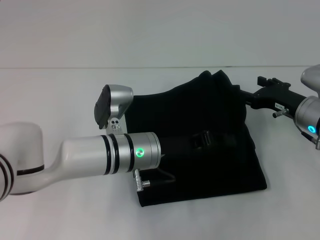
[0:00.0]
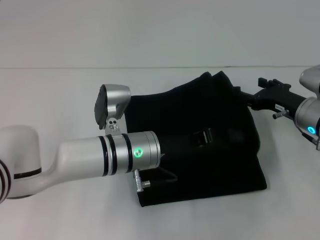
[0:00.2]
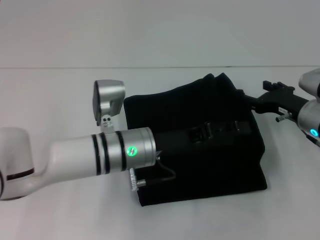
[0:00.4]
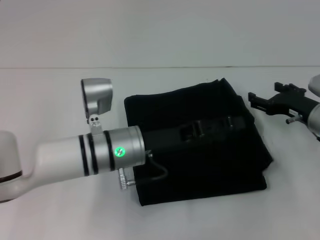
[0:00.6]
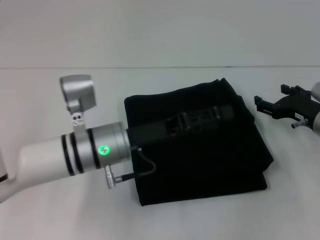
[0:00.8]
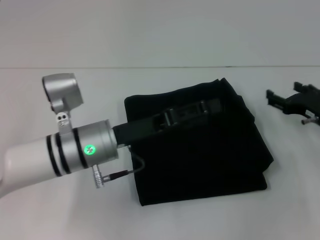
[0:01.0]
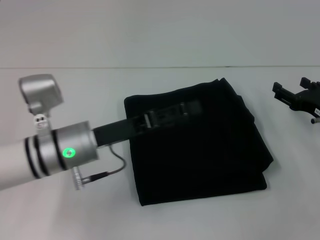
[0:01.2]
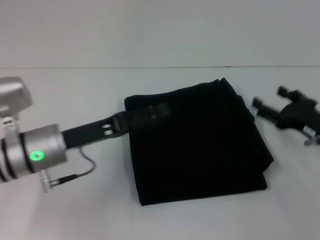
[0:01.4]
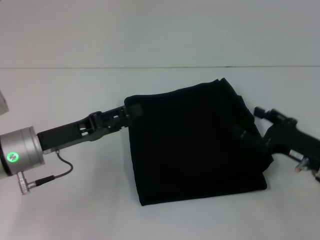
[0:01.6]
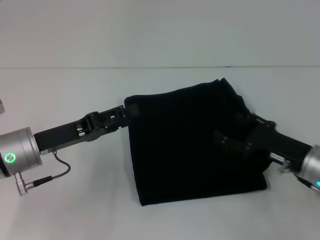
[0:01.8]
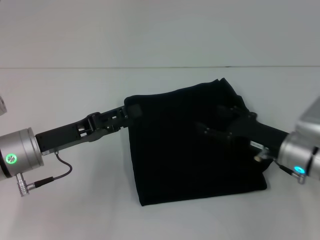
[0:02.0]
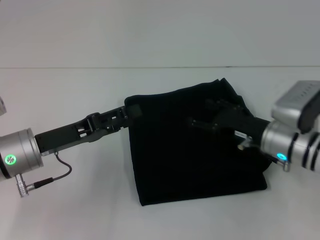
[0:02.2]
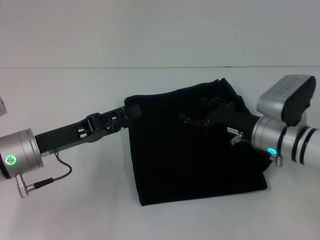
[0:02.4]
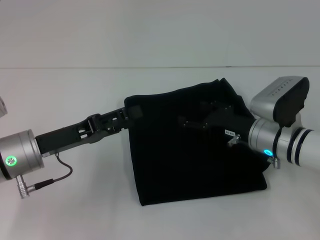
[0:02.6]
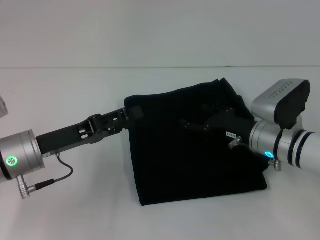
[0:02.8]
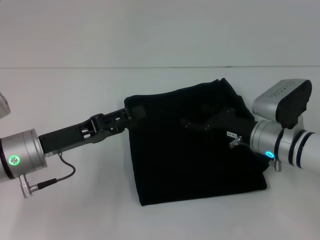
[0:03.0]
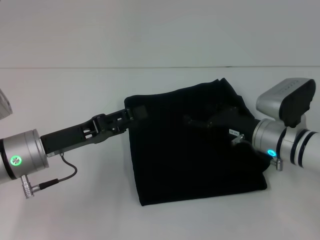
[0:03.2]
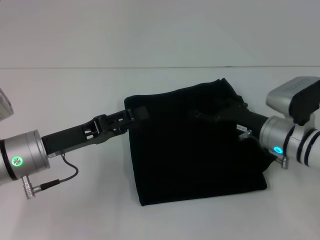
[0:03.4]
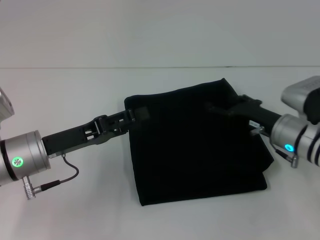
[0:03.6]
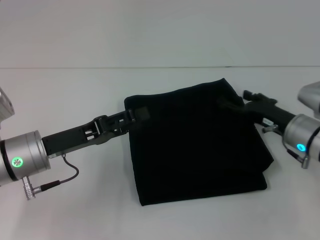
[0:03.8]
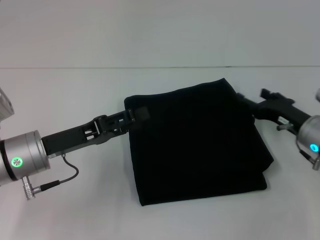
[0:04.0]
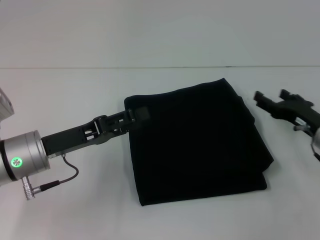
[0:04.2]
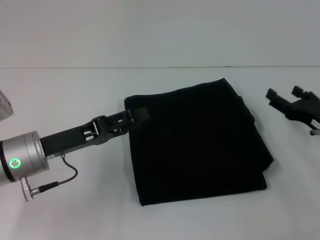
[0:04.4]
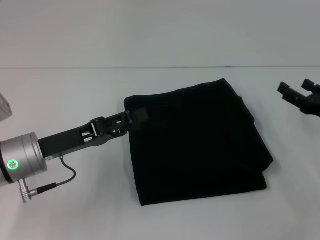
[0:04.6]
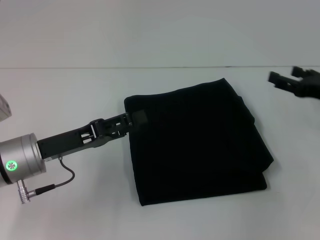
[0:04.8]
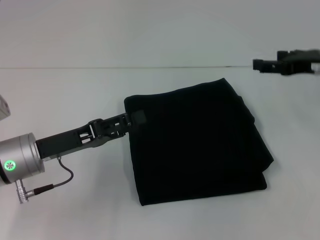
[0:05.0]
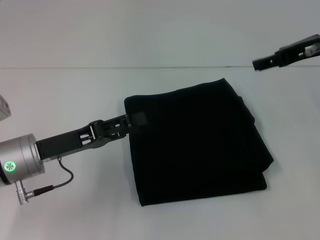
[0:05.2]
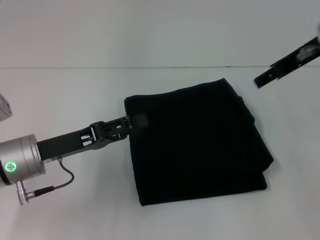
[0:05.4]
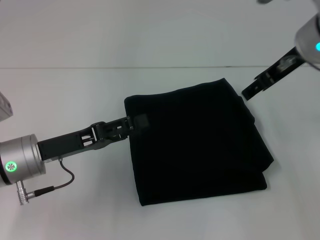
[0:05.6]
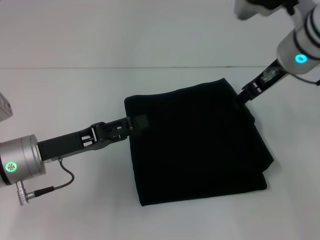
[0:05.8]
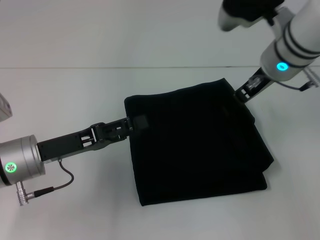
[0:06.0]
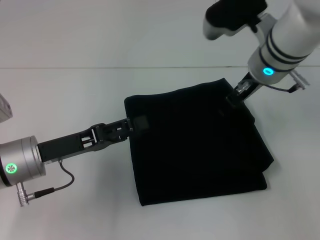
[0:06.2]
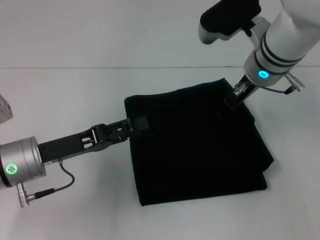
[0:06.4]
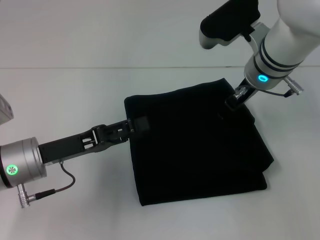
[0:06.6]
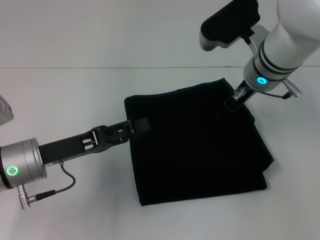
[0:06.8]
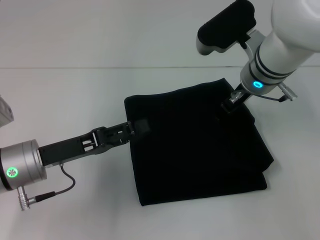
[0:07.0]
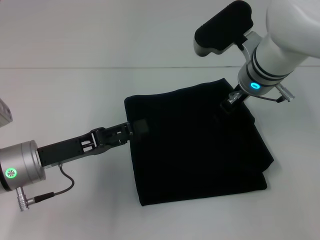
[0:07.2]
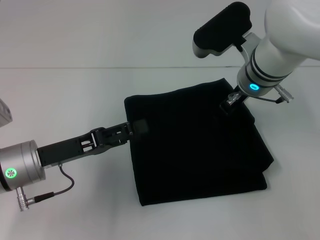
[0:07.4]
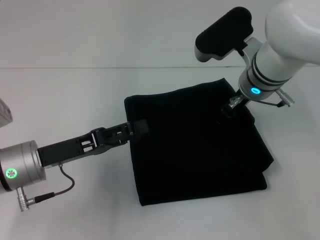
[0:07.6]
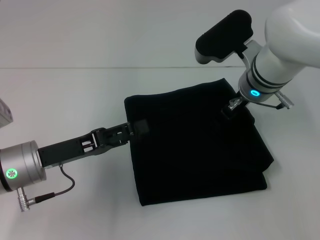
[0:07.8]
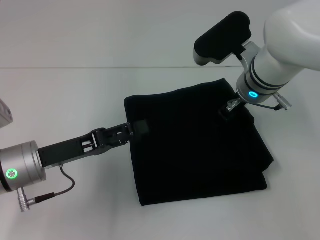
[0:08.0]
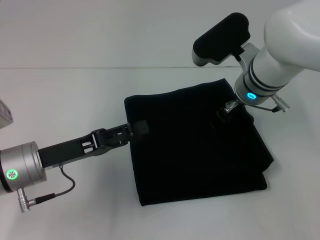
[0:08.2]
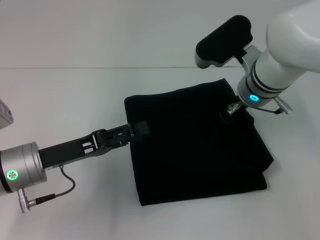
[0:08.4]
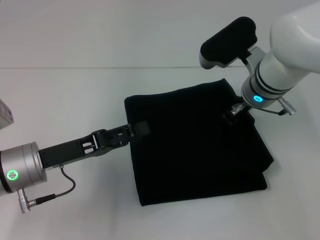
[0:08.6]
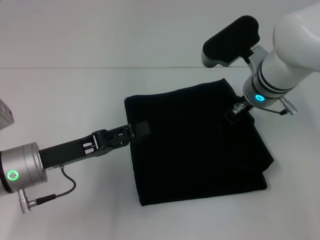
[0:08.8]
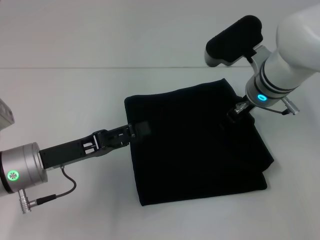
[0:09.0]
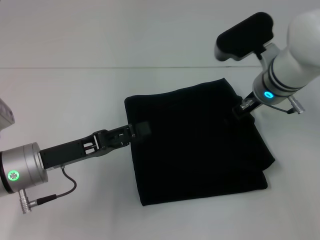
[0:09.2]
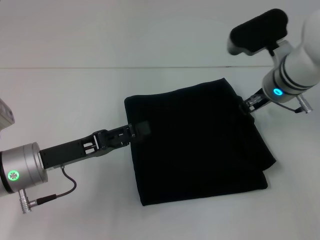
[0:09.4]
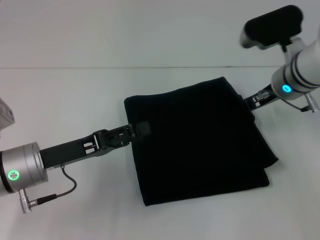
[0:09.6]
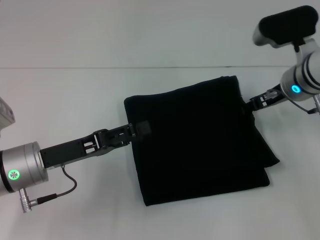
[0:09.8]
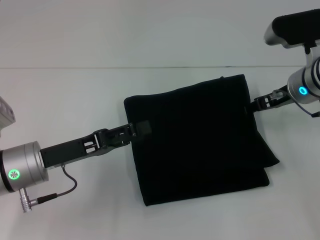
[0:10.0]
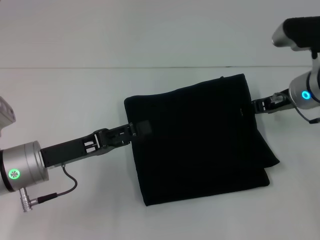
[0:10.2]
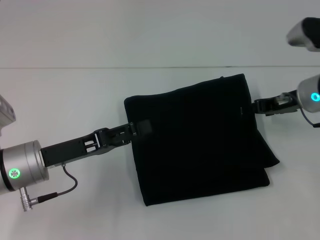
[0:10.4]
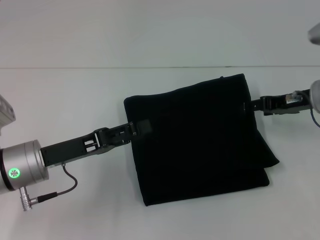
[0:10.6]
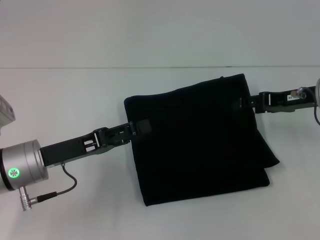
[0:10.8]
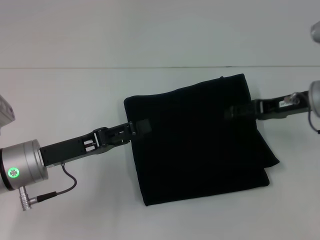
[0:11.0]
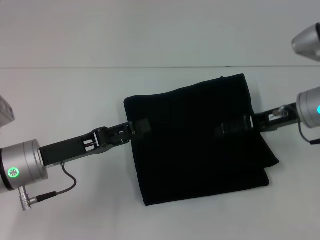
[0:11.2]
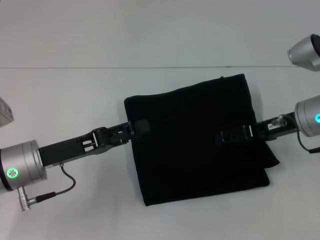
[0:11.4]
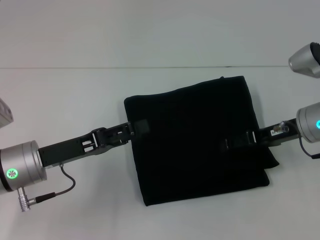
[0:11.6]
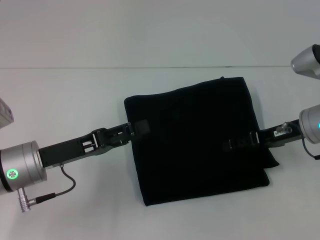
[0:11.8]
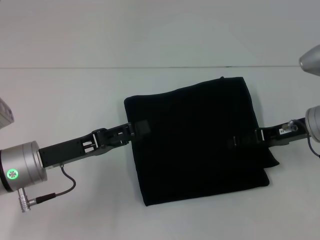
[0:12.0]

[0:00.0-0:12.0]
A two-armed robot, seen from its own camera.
0.0 to 1.6 s: The right gripper is displaced backward by roughly 10 cm, while the left gripper heads to the left, covering some 15 cm, and opens up.
1.6 to 3.0 s: The right gripper is displaced to the left and forward by some 10 cm.
3.0 to 4.4 s: The right gripper heads to the right, covering about 10 cm.
4.4 to 6.0 s: The right gripper moves upward, to the left and forward, about 25 cm.
6.0 to 7.6 s: The right gripper heads downward, covering roughly 5 cm.
7.6 to 9.0 s: There are only small adjustments of the grippers.
9.0 to 10.4 s: The right gripper travels to the right by roughly 10 cm.

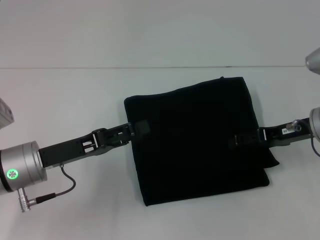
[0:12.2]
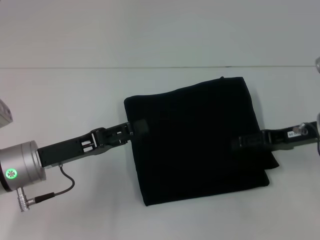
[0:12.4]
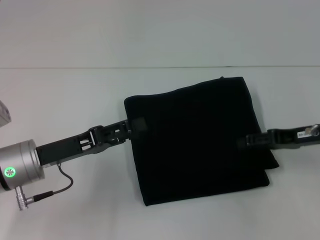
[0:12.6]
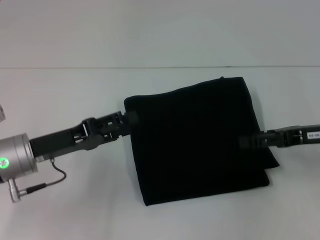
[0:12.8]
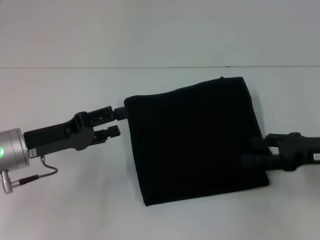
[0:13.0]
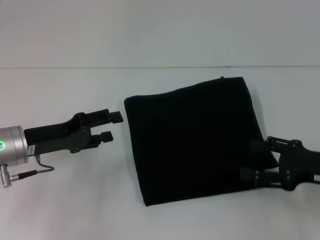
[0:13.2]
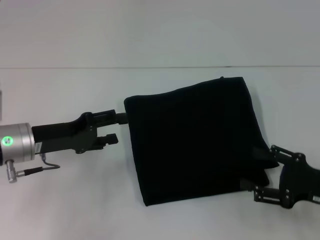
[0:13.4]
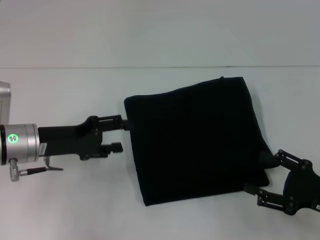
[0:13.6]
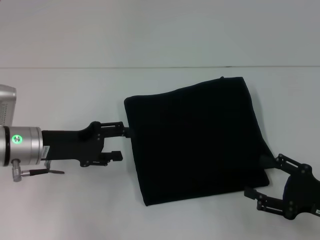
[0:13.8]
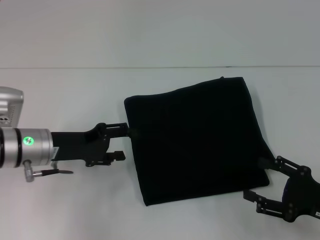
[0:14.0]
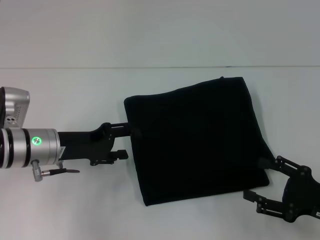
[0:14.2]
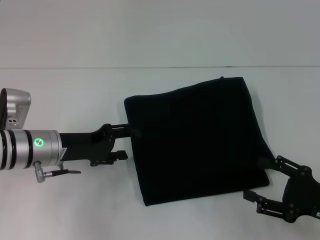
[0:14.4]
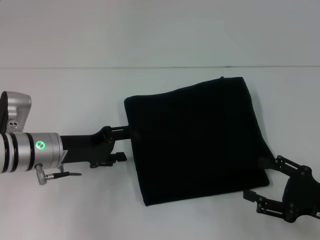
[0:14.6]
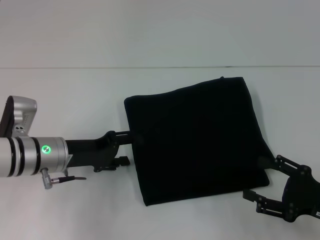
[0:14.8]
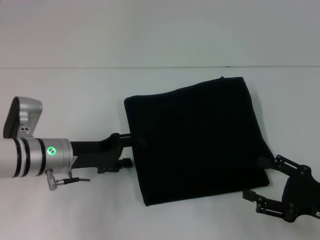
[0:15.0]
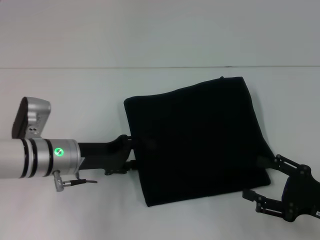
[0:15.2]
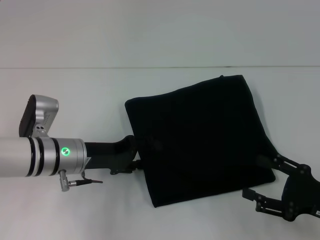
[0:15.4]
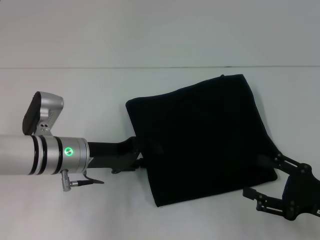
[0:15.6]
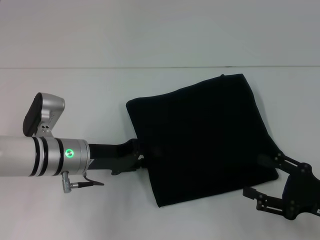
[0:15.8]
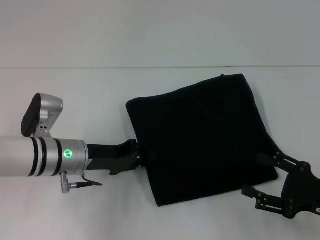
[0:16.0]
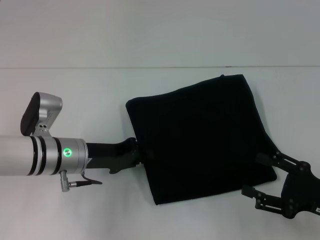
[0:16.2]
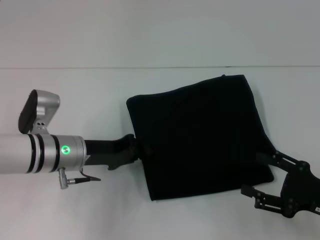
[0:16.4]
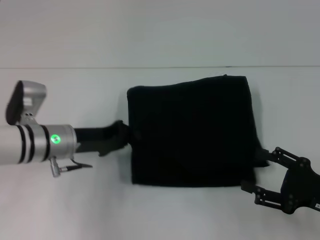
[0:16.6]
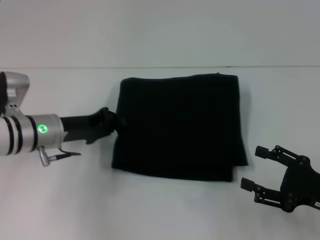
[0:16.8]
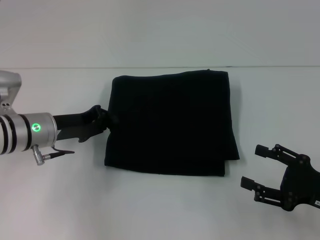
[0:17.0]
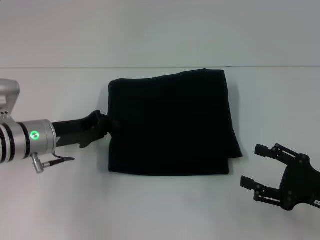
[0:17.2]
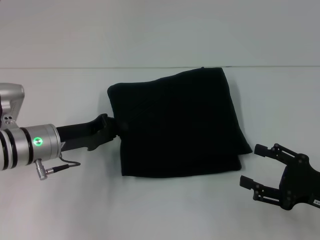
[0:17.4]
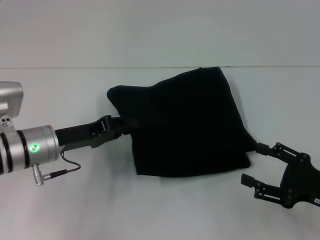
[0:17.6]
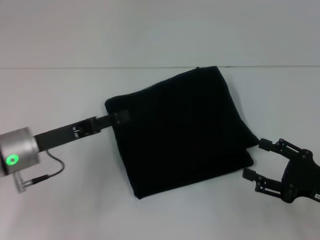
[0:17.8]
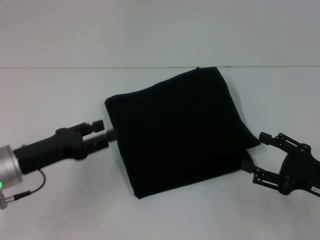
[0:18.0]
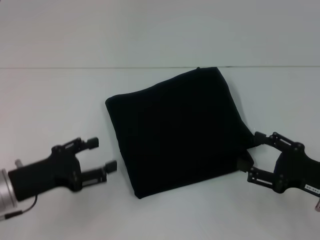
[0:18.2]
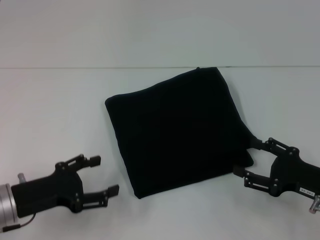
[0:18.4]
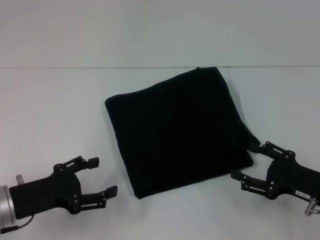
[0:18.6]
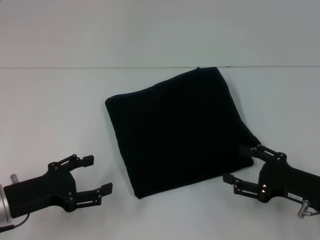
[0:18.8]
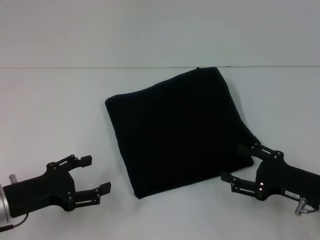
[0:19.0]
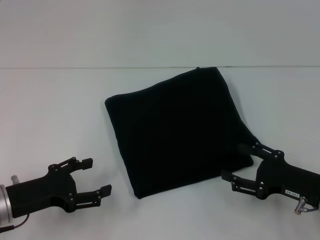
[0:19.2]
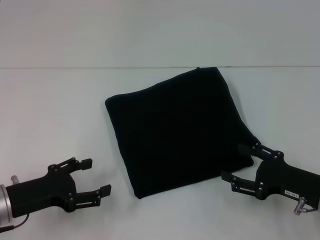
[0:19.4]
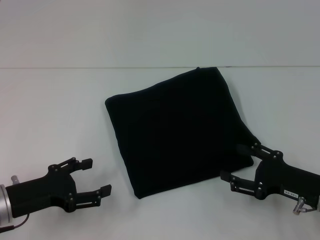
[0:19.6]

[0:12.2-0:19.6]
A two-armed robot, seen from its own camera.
12.2 to 13.6 s: The right gripper is displaced backward and downward by about 15 cm.
13.6 to 15.2 s: The left gripper is displaced to the right by approximately 5 cm.
15.2 to 16.6 s: The left gripper closes.
16.6 to 18.2 s: The left gripper travels backward and to the left by about 10 cm, and opens up.
18.2 to 19.6 s: The grippers stay close to where they were, moving slightly.

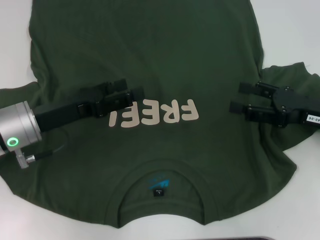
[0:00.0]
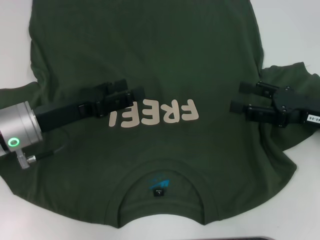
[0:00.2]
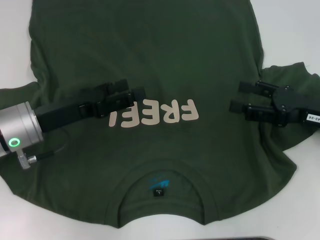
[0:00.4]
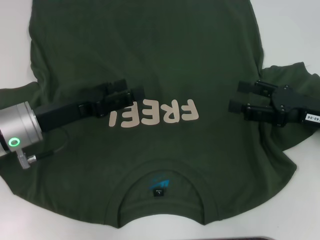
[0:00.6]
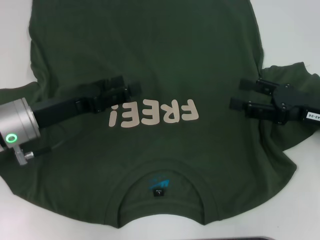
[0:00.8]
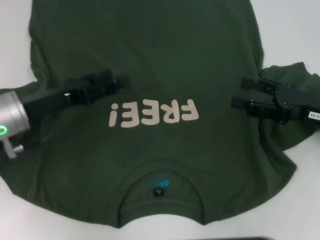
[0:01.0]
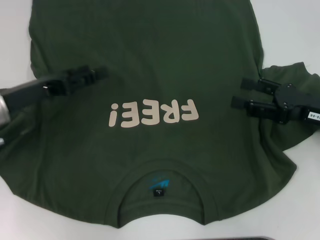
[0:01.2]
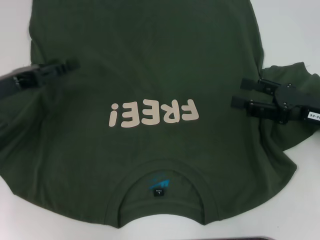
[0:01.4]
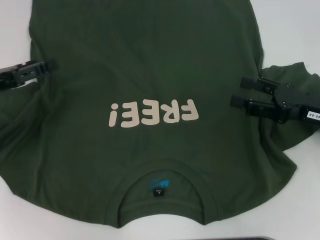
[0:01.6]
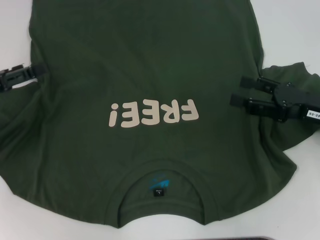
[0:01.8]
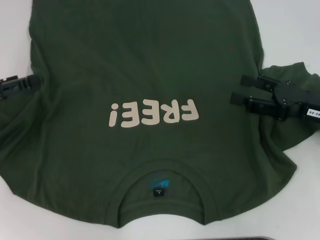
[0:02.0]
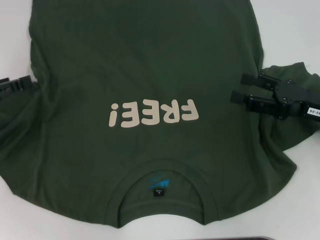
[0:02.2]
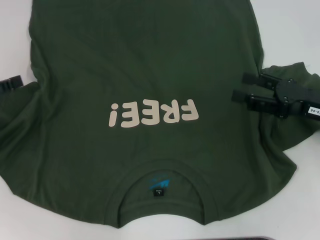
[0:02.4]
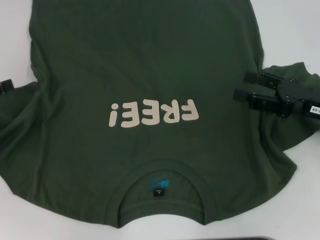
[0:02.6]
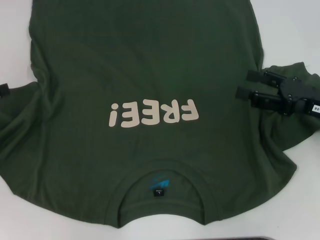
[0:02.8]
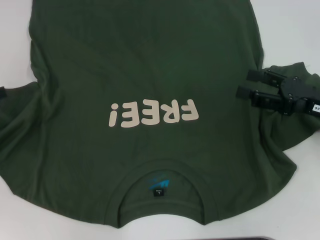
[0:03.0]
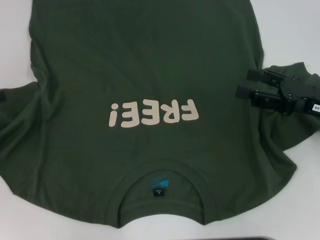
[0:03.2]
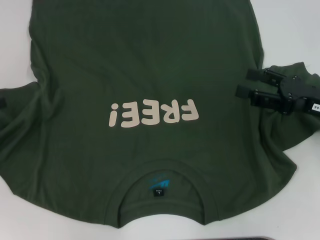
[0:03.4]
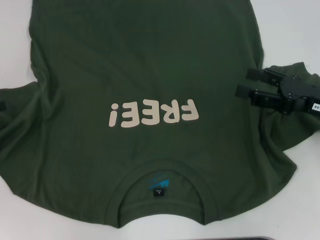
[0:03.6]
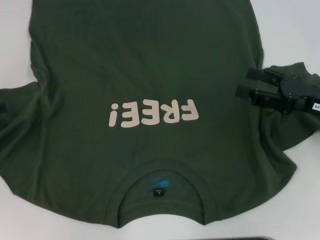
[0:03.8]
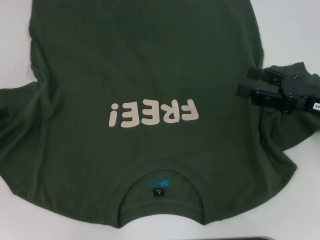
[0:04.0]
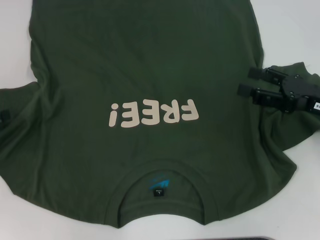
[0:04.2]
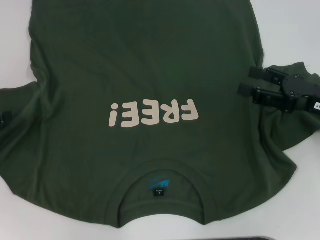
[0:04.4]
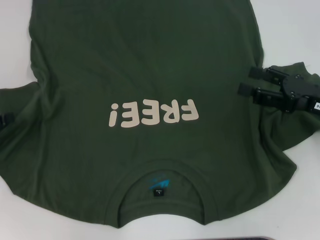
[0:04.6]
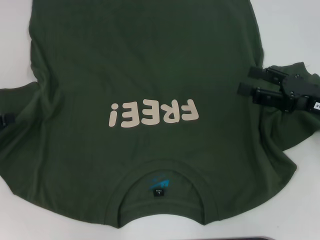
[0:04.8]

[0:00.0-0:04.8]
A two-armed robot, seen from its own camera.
0.0 to 1.6 s: The left gripper travels to the left by roughly 10 cm.
1.6 to 3.2 s: The left gripper travels to the left by approximately 5 cm.
